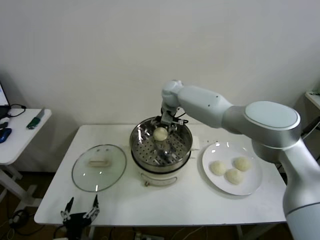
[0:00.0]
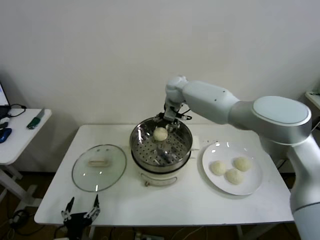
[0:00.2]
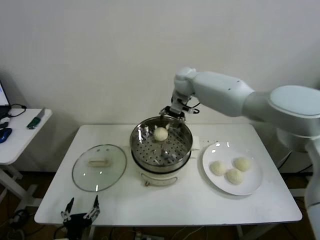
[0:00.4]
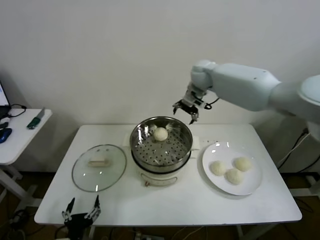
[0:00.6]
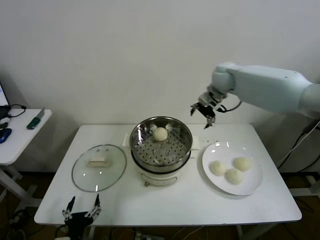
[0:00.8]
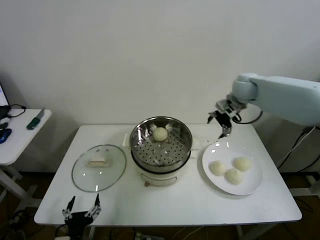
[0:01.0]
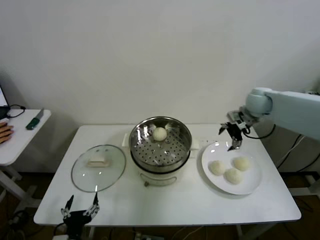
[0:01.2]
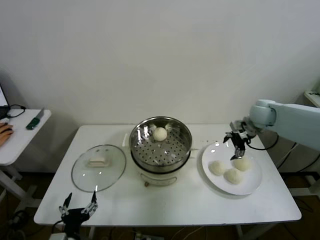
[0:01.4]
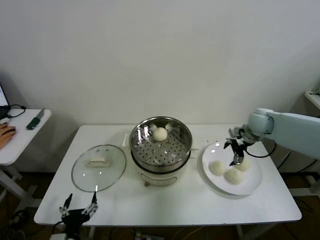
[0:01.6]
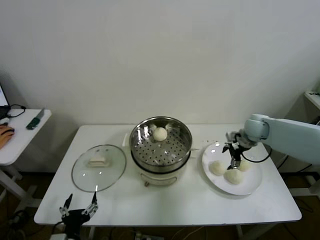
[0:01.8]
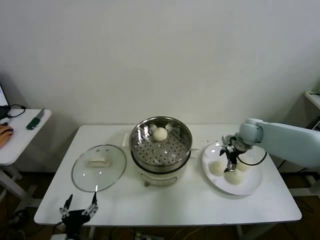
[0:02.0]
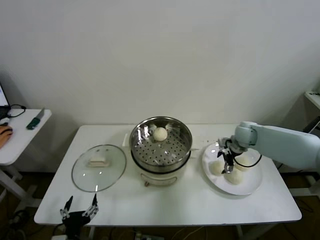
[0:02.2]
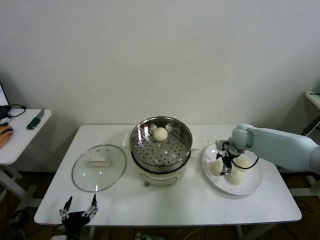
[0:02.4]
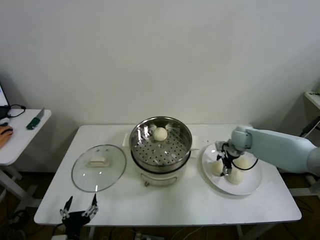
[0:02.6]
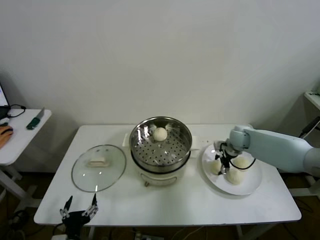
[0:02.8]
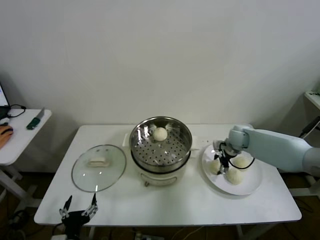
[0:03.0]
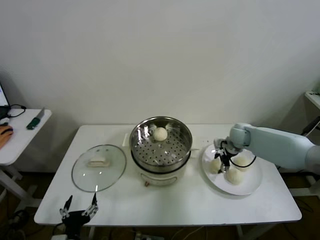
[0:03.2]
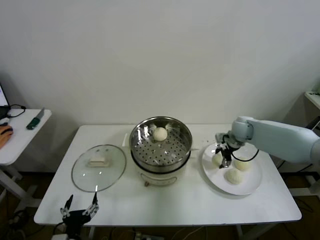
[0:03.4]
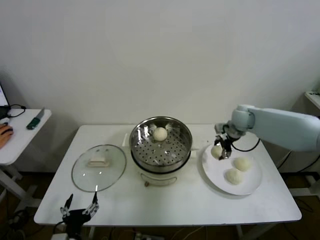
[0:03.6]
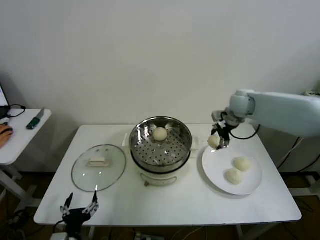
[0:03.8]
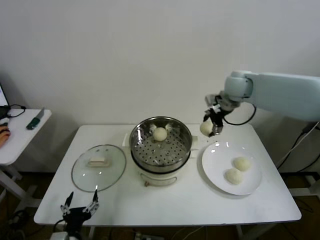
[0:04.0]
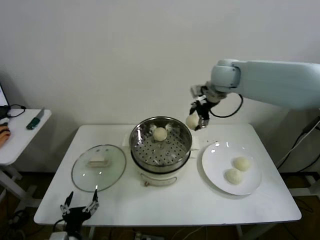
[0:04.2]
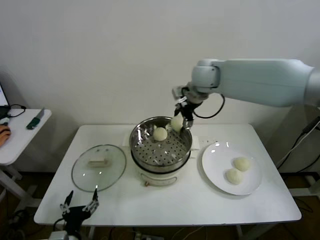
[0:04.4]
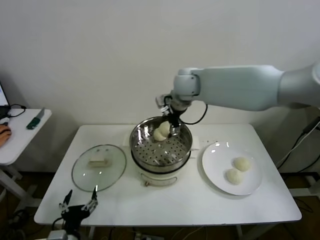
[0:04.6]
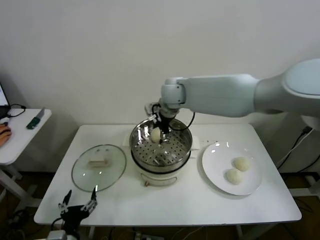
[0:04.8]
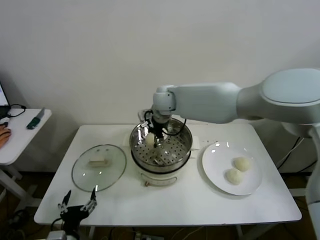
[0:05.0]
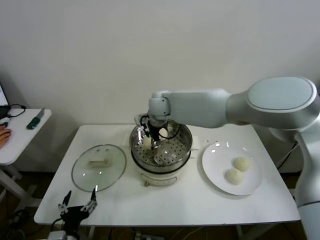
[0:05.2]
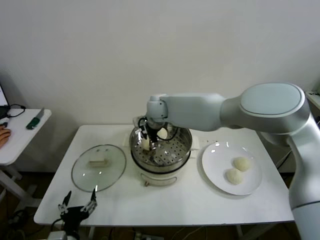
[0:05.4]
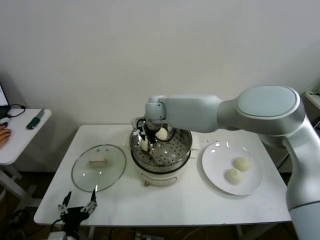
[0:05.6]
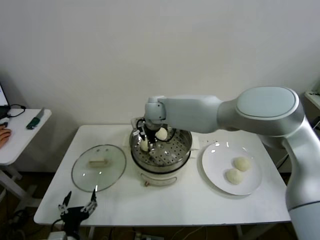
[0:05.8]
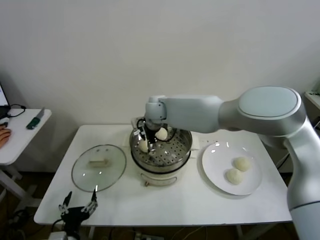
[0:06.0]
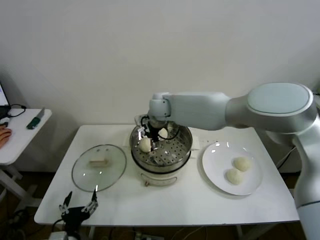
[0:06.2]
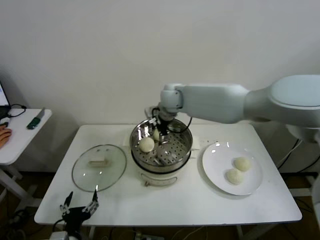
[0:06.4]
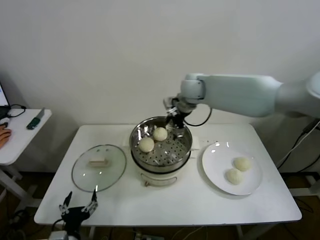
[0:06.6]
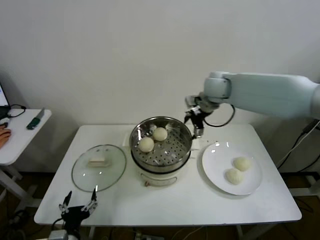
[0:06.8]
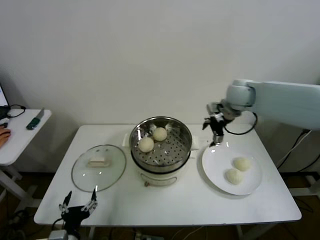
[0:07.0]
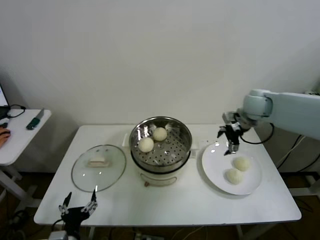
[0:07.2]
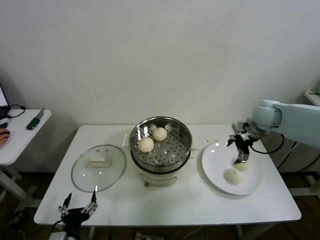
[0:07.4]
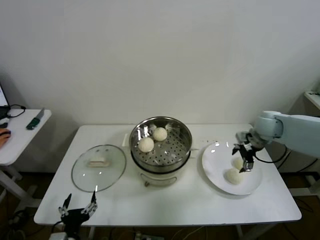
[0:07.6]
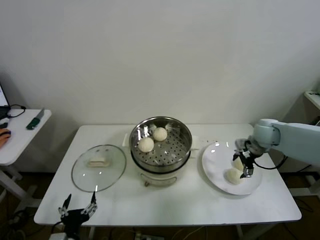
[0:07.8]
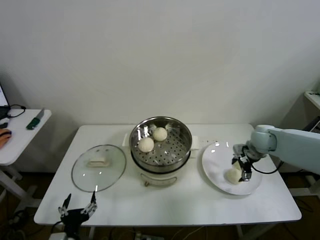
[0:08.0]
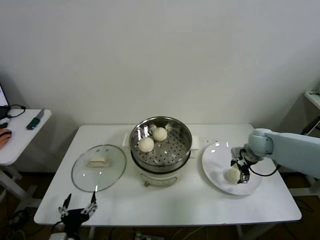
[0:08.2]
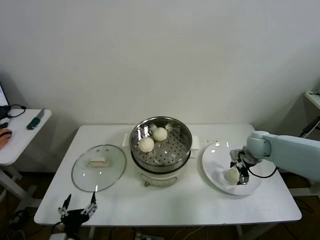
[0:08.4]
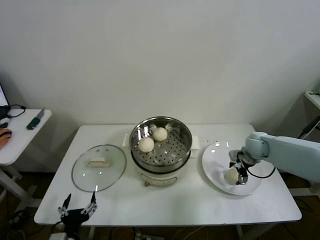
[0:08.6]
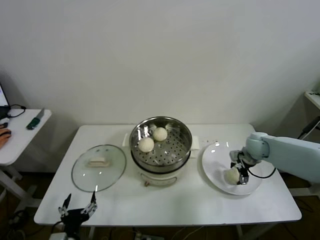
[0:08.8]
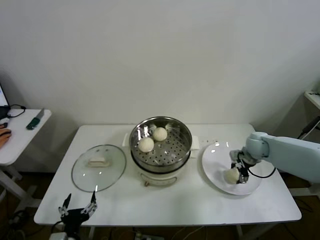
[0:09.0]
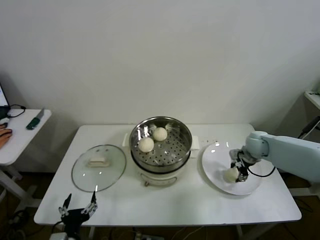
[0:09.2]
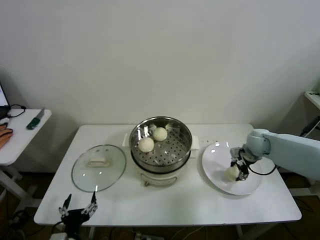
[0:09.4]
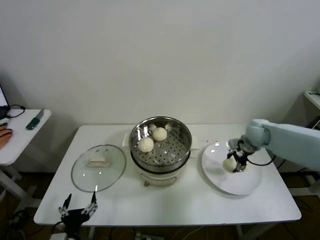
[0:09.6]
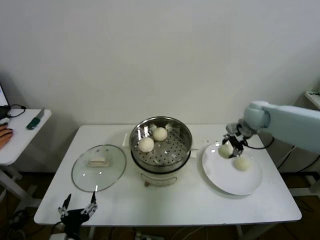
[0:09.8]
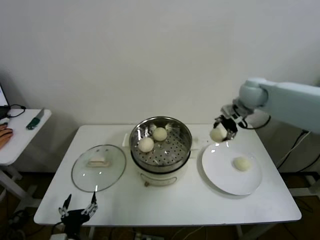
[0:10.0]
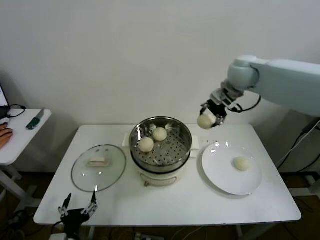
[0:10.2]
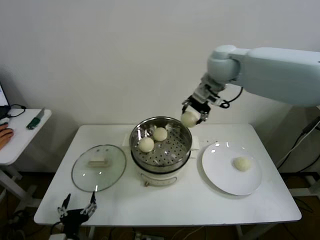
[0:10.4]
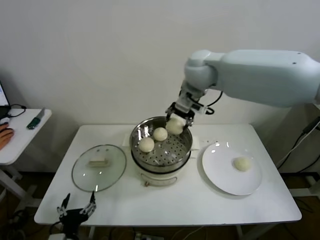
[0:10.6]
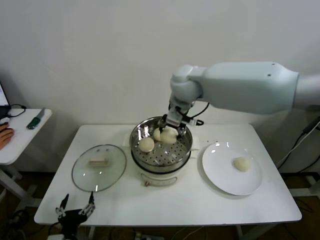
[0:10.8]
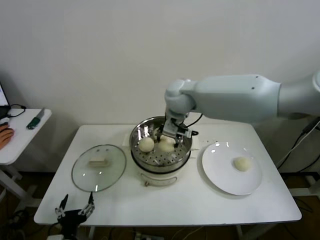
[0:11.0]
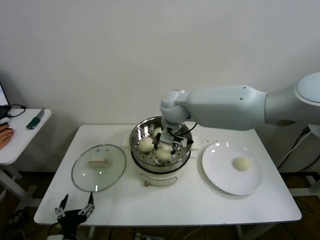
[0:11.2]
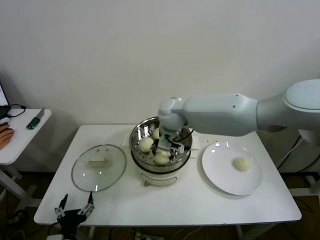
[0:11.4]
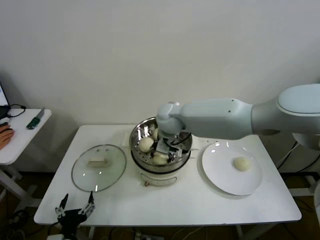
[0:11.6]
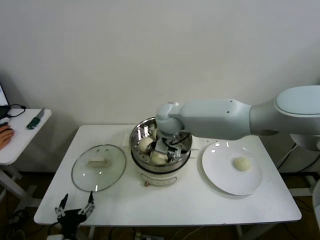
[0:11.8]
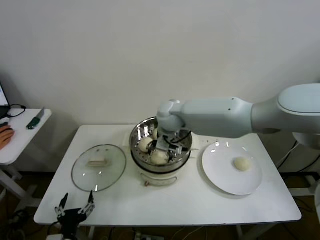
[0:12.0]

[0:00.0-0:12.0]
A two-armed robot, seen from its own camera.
Step, 0:00.0 to 0:02.8: Grasp the baozi in the plate with right gripper.
Step, 0:03.0 to 0:05.8: Place the baozi on the steamer with right gripper.
Step, 0:06.0 to 0:08.8: Grasp the baozi in the plate with right gripper.
Step, 0:09.0 to 0:11.8: Place the baozi on the steamer with right gripper.
0:00.0 to 0:01.6: The right gripper shifts roughly 30 cm to the right.
0:01.6 to 0:03.0: The right gripper shifts some 10 cm downward, and closes up.
0:03.0 to 0:04.4: The right gripper shifts some 35 cm upward and to the left.
0:04.4 to 0:06.0: The right gripper moves to the left and downward, roughly 20 cm, and opens.
0:06.0 to 0:07.6: The right gripper is displaced to the right by approximately 40 cm.
0:07.6 to 0:09.0: The right gripper shifts some 10 cm downward, and closes.
0:09.0 to 0:10.4: The right gripper shifts roughly 35 cm upward and to the left, and closes its fingers.
0:10.4 to 0:12.0: The right gripper goes approximately 25 cm downward and to the left, and opens.

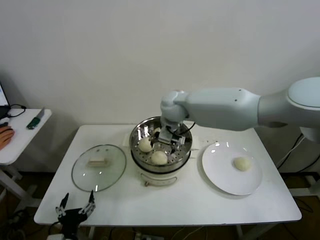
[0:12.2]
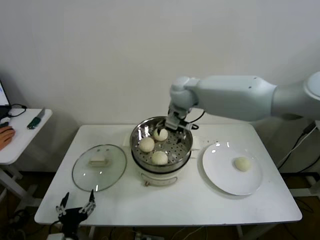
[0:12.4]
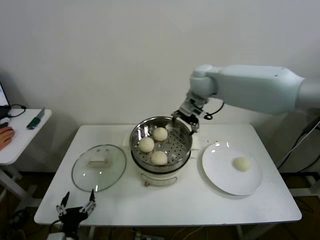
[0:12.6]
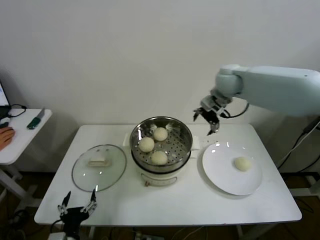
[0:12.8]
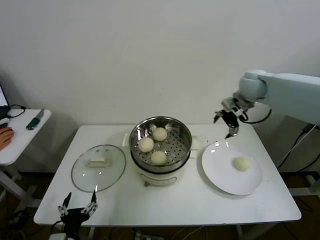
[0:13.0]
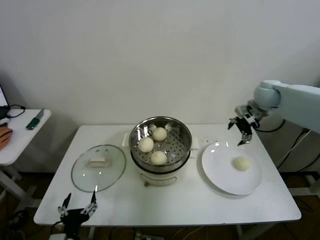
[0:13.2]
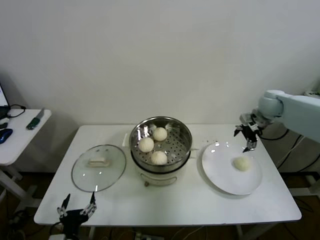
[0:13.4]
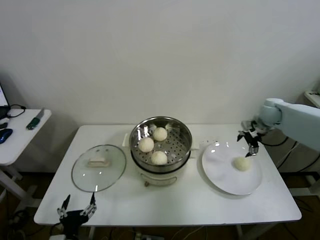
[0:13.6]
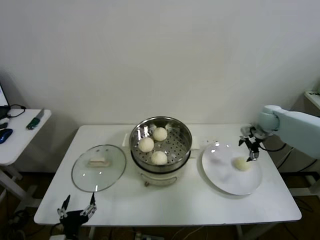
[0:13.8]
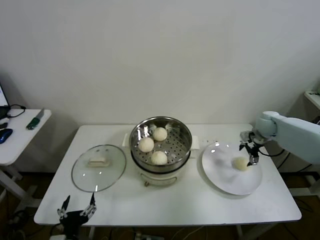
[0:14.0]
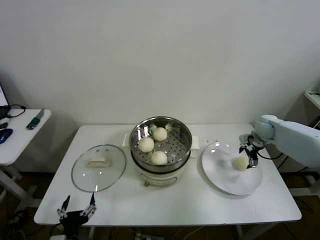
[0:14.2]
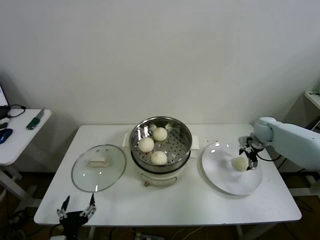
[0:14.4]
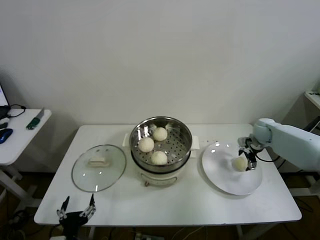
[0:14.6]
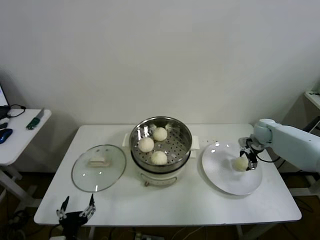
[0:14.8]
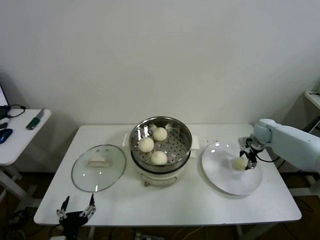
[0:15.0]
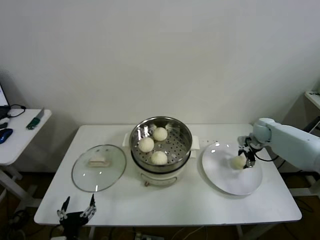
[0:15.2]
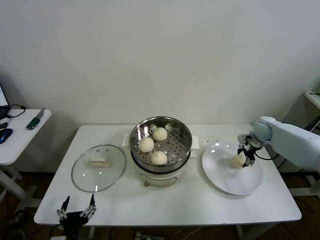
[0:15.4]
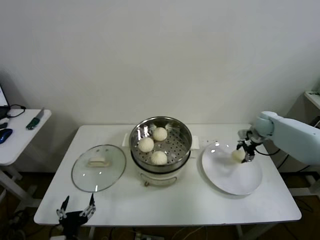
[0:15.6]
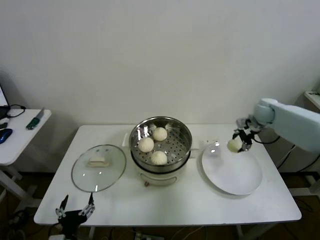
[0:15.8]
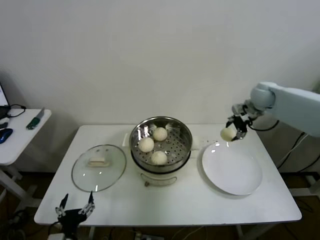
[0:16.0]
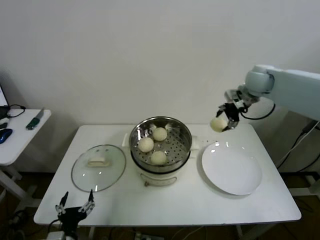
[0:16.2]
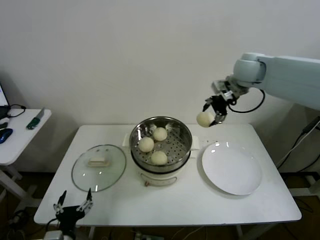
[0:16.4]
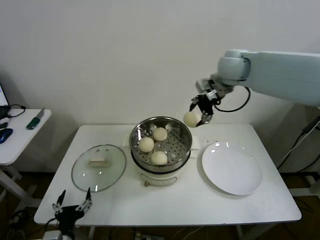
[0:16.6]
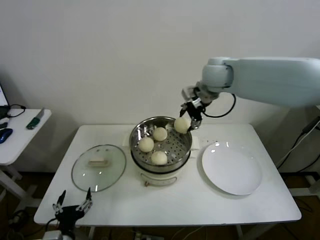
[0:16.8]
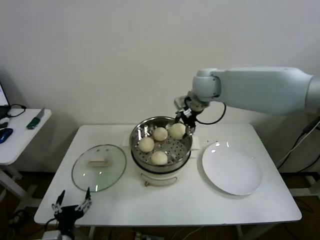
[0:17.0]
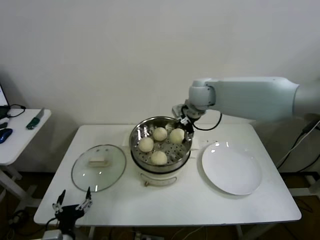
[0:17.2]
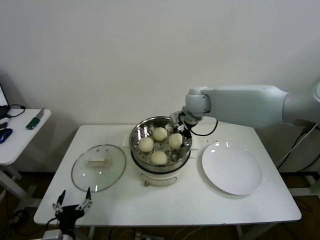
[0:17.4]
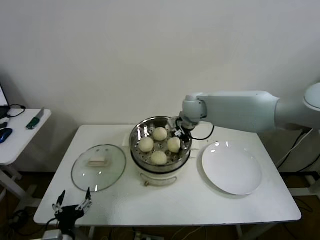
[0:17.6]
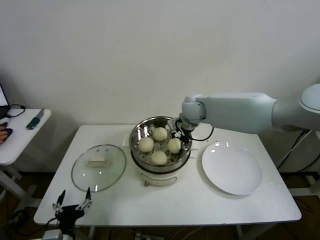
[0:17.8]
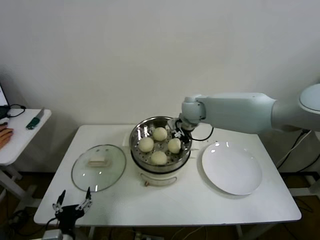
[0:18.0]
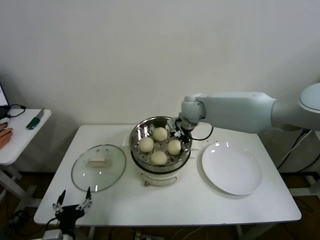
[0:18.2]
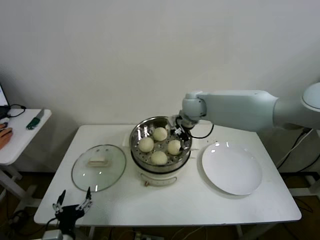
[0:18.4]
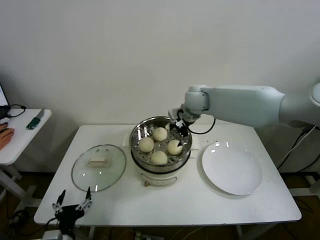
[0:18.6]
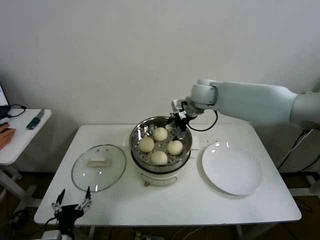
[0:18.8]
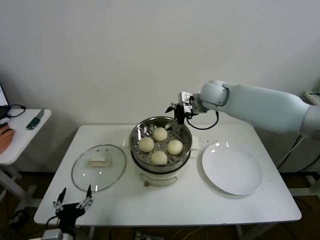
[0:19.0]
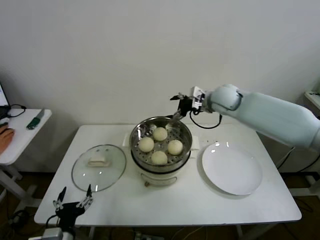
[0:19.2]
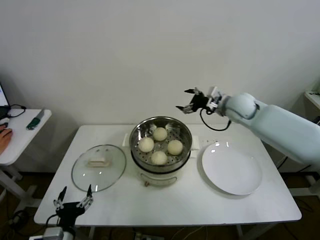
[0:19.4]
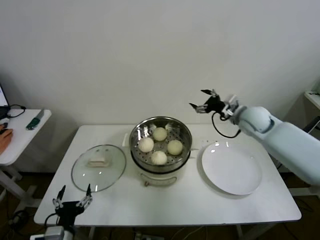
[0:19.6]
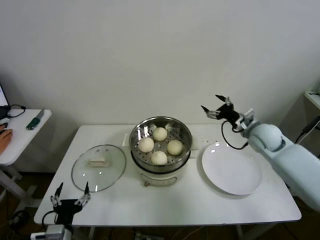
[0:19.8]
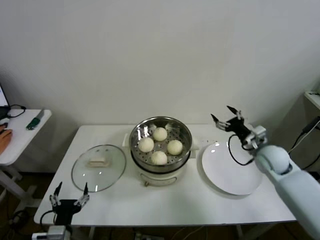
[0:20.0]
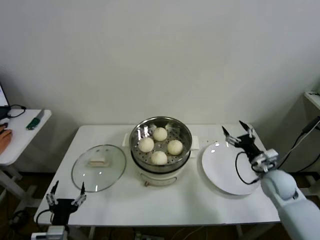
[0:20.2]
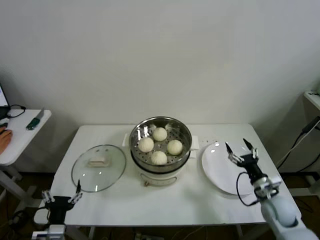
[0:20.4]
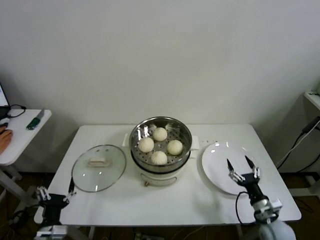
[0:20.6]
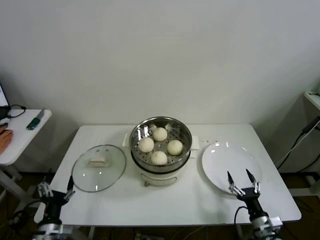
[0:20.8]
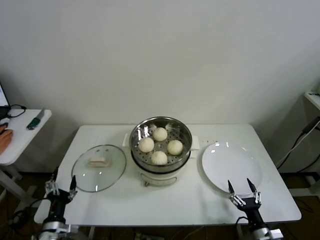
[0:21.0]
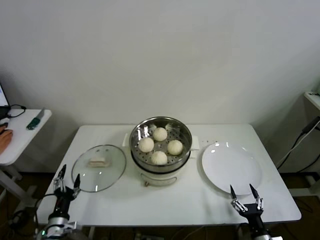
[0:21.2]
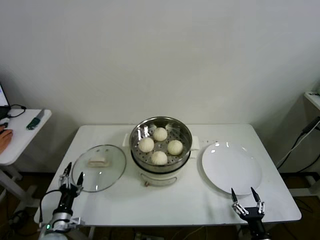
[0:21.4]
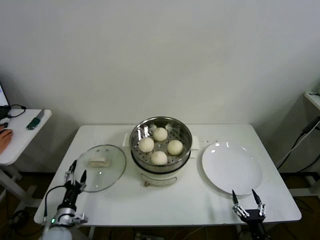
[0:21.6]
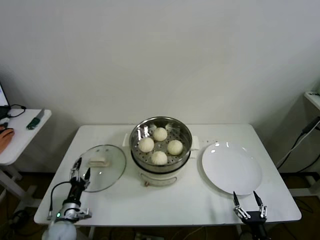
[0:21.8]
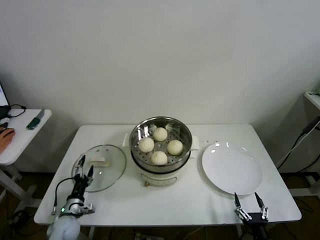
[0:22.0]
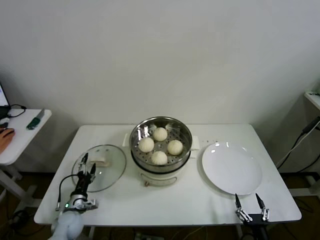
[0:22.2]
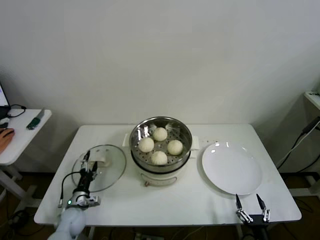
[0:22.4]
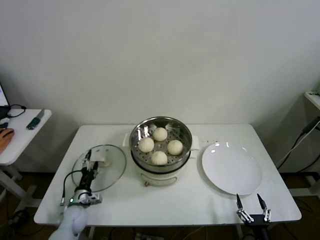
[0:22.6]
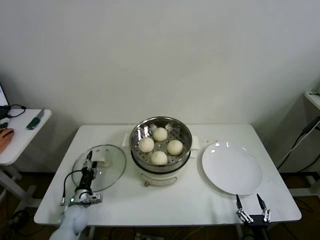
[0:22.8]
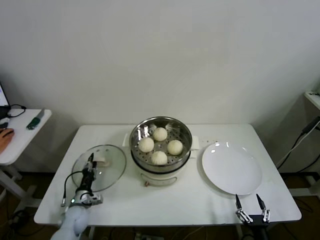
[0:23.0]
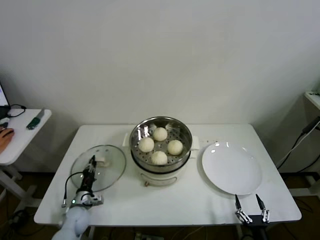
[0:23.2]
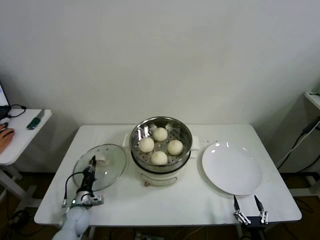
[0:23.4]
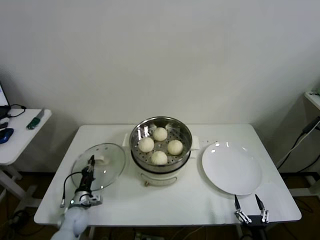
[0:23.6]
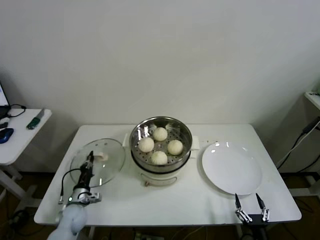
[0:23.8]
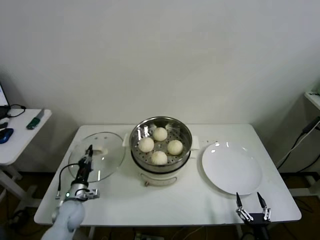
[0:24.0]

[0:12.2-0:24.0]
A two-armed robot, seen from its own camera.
Step, 0:12.2 to 0:14.8: Grasp the baozi in the plate with right gripper.
Step, 0:15.2 to 0:18.2: Place the baozi on the steamer with right gripper.
Step, 0:18.4 to 0:23.2: Grasp the pot lid with left gripper.
0:12.2 to 0:13.6: The right gripper travels to the right by approximately 35 cm.
0:13.6 to 0:15.2: The right gripper heads downward, covering approximately 10 cm, and closes up.
0:15.2 to 0:16.6: The right gripper travels upward and to the left by roughly 35 cm.
0:16.6 to 0:18.2: The right gripper moves downward and to the left, approximately 20 cm, and opens.
0:18.2 to 0:19.6: The right gripper goes about 20 cm to the right, and opens its fingers.
0:19.6 to 0:21.0: The right gripper shifts approximately 50 cm backward and downward. The left gripper travels to the left by about 5 cm.
0:21.0 to 0:22.6: The left gripper shifts about 20 cm forward and downward. Meanwhile the right gripper shifts roughly 5 cm backward.
0:22.6 to 0:24.0: The left gripper closes.
